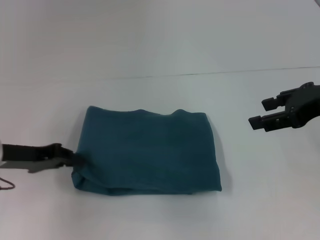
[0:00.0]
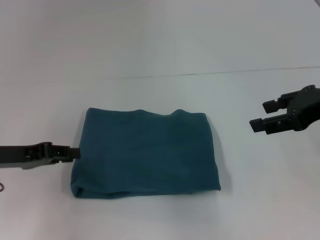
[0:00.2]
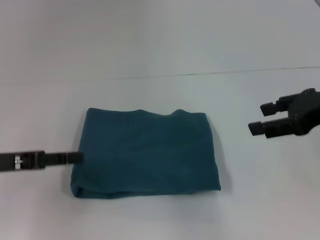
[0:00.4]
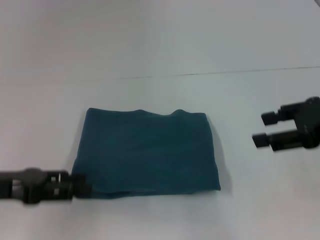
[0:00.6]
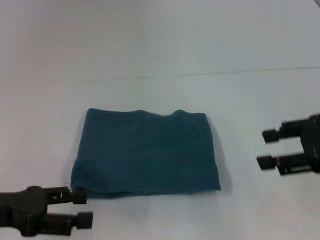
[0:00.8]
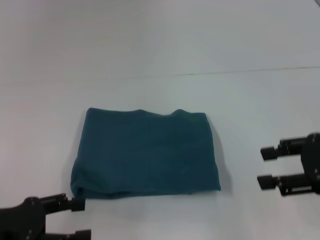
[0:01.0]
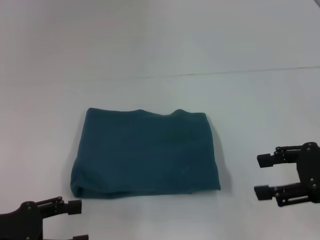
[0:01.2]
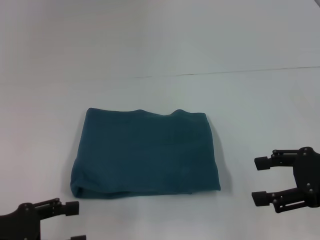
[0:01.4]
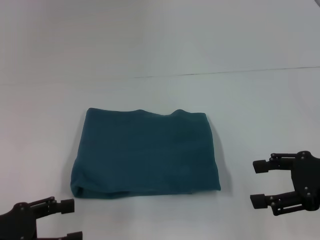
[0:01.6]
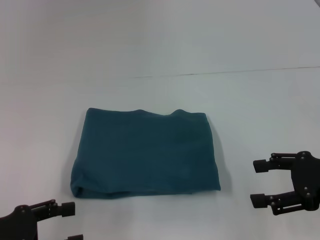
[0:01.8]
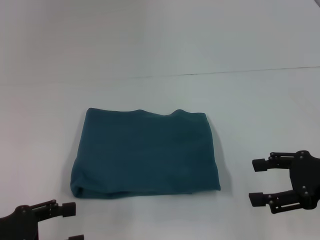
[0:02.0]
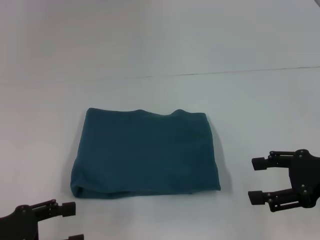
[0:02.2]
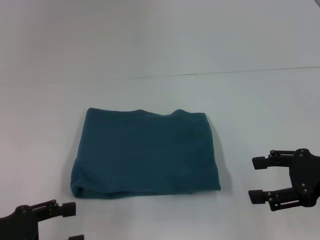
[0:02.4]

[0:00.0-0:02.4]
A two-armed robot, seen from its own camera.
0:00.0 to 0:01.2: The right gripper goes about 10 cm backward and downward; the left gripper moves backward, about 10 cm, and opens up.
0:01.2 to 0:02.4: The grippers stay close to where they were, moving slightly.
